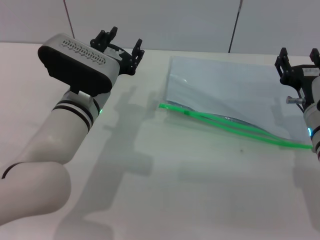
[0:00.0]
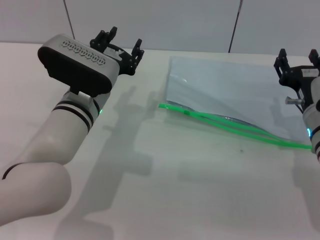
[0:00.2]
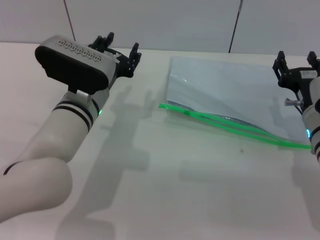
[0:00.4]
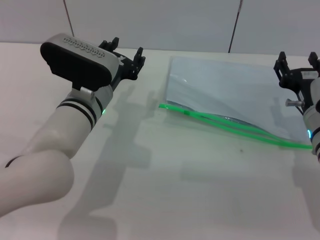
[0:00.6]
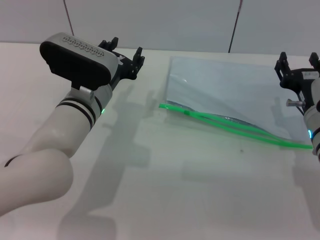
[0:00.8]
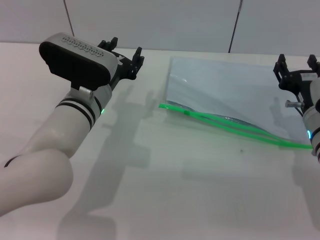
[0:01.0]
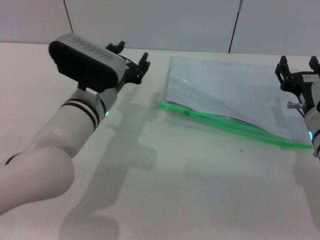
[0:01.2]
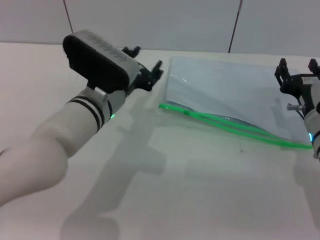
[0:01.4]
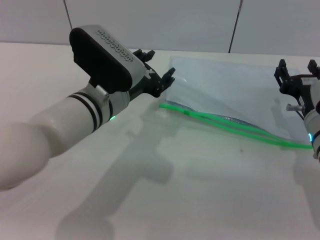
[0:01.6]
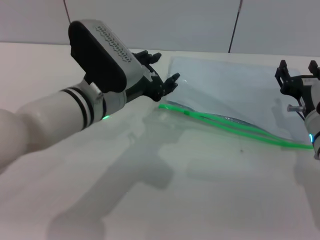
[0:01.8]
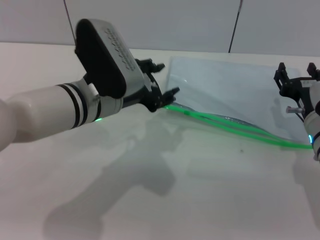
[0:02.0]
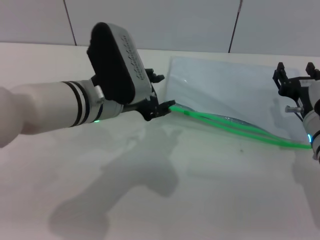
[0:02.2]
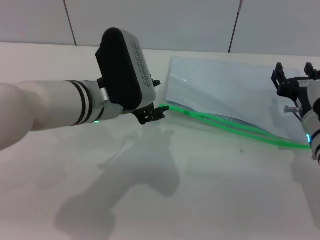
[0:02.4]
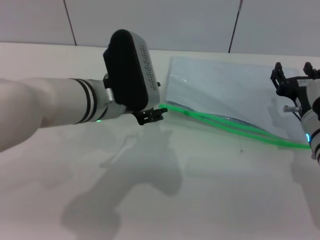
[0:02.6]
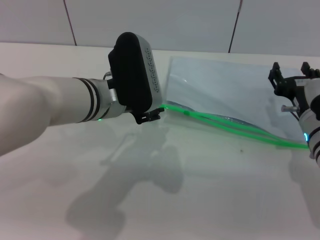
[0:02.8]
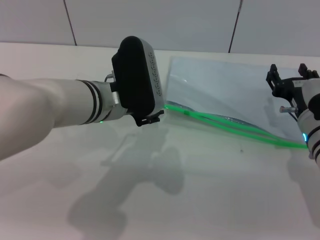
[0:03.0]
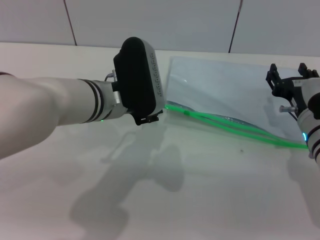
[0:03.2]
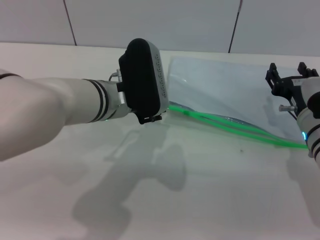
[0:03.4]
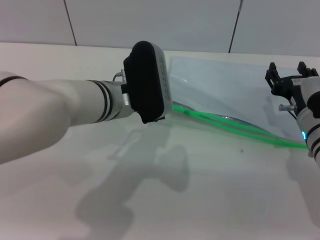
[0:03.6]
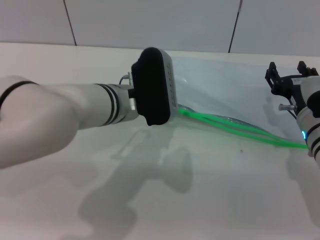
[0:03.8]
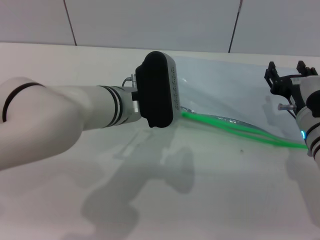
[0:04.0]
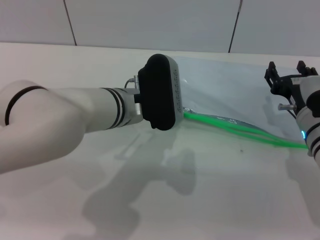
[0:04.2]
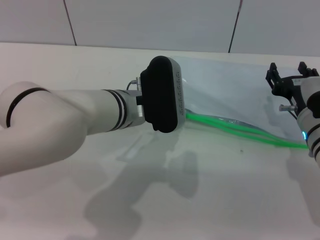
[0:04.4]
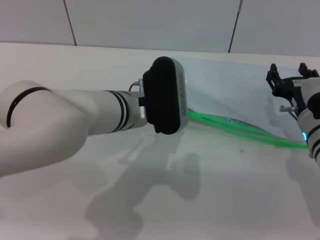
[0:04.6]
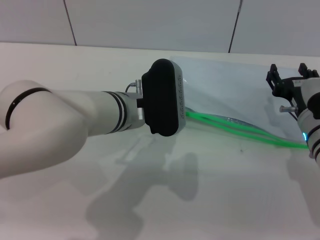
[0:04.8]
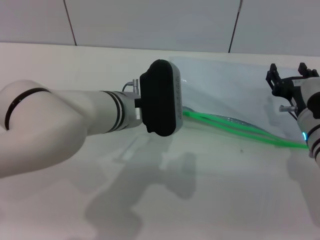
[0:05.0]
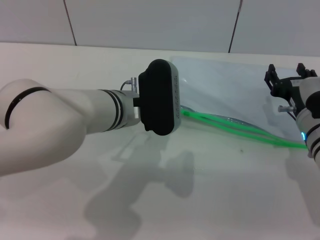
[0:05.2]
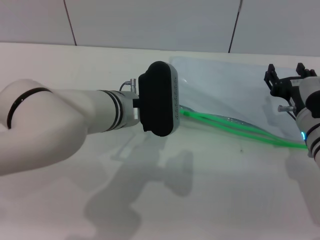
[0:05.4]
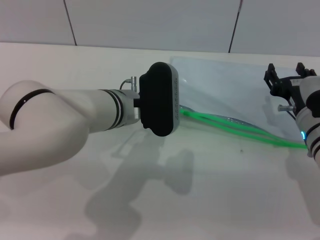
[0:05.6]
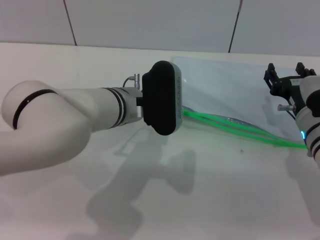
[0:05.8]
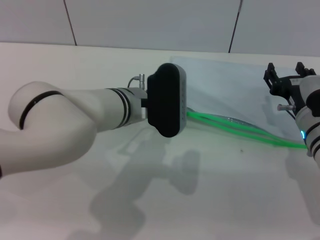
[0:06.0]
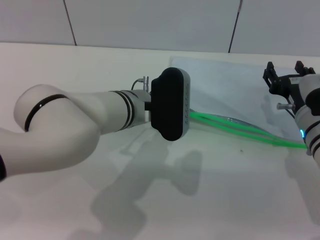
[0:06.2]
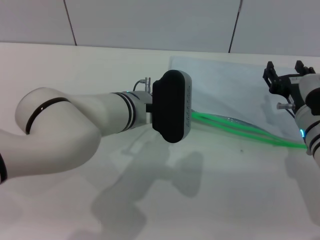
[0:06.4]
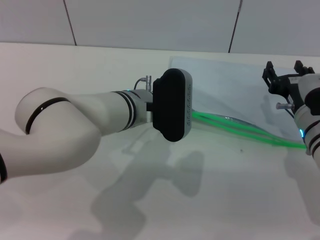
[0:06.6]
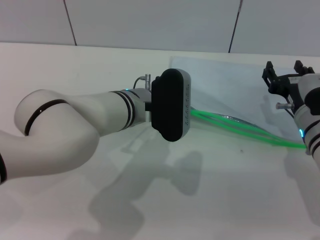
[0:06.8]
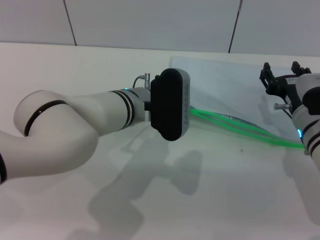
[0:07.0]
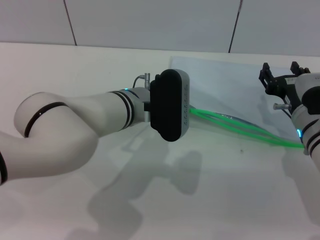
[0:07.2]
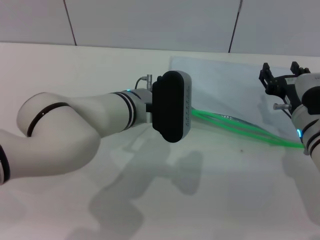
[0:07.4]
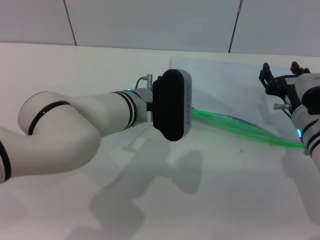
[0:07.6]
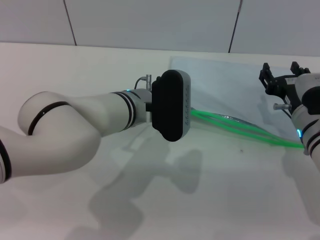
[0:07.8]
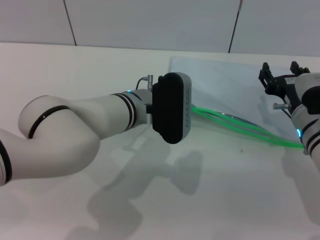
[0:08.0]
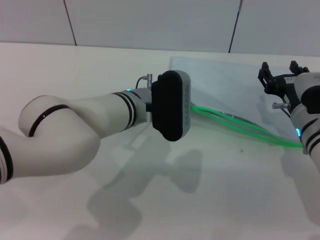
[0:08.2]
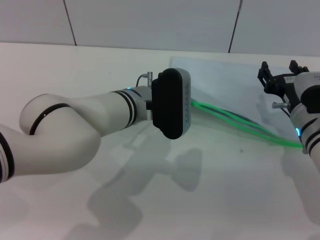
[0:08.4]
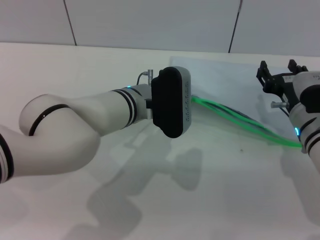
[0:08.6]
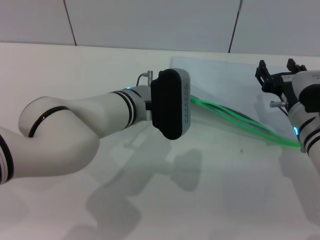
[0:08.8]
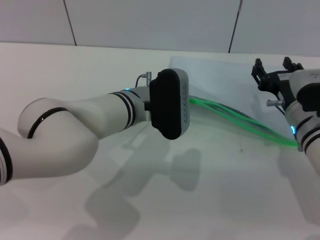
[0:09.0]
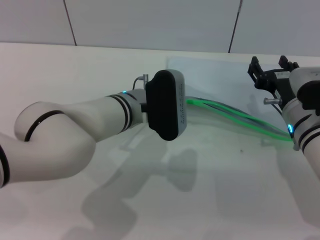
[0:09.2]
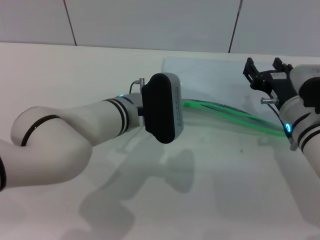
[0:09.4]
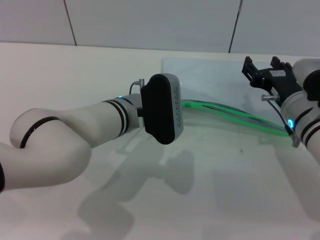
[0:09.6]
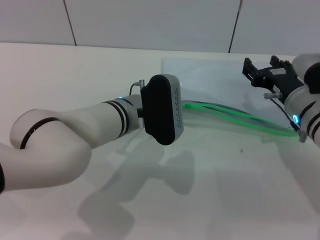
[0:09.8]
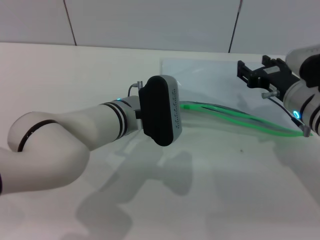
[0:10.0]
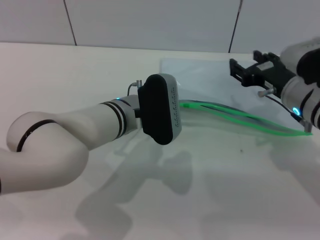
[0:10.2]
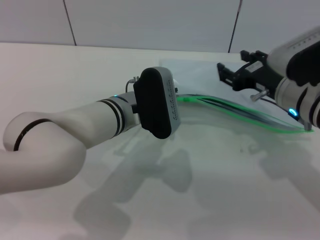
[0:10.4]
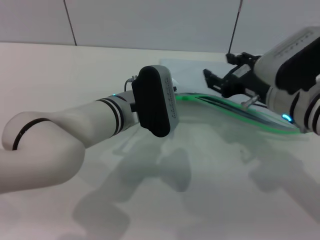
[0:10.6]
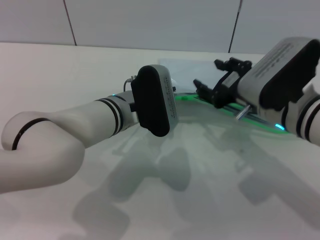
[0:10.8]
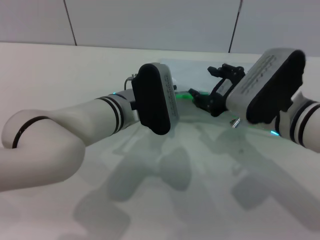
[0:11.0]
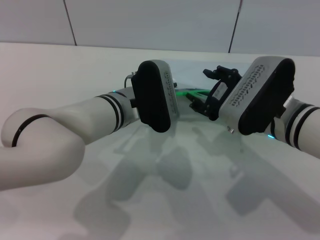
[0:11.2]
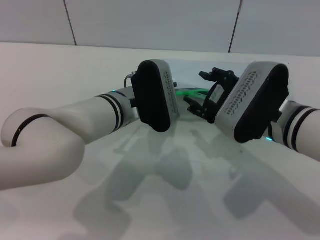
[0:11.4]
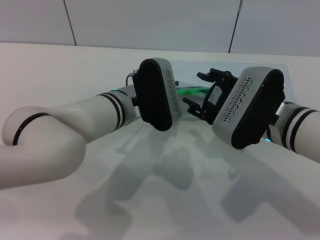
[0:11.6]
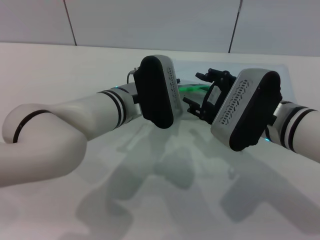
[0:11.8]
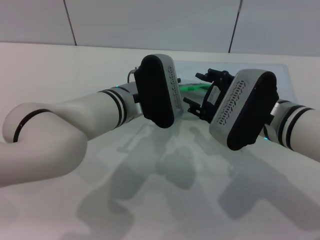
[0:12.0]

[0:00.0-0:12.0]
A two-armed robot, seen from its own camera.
Step, 0:00.0 to 0:10.4: Pick up the transparent plastic bag with the left gripper.
0:00.0 to 0:01.6: The grippers stay close to where they were, moving slightly.
0:03.0 to 0:07.6: There are only small adjustments of the grippers.
0:07.6 to 0:09.0: The left gripper closes its fingers.
0:09.0 to 0:10.4: The right gripper travels upward by about 5 cm.
0:10.4 to 0:12.0: The right gripper changes place by roughly 5 cm.

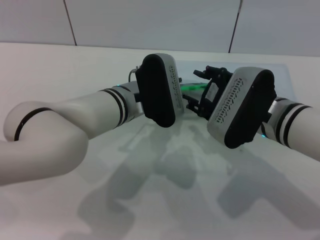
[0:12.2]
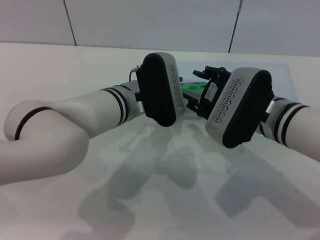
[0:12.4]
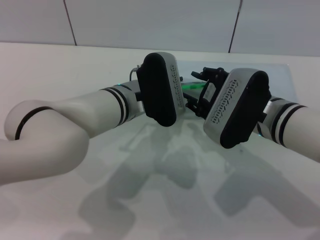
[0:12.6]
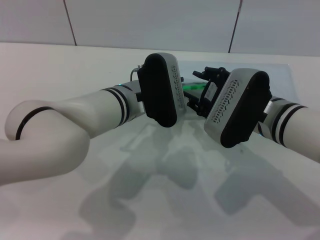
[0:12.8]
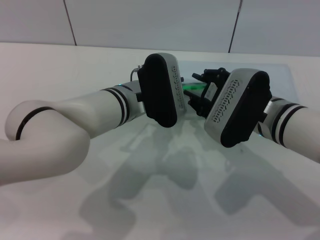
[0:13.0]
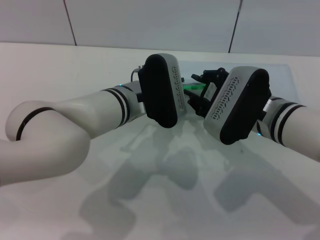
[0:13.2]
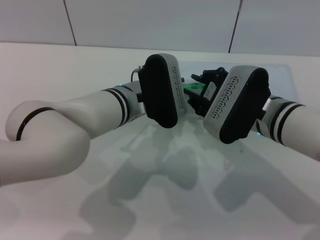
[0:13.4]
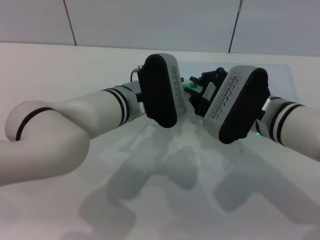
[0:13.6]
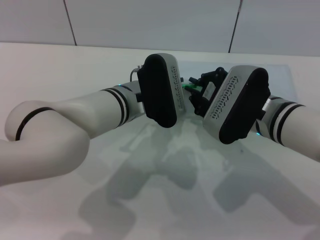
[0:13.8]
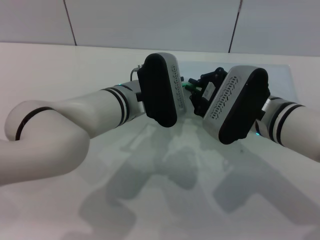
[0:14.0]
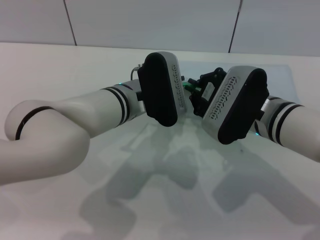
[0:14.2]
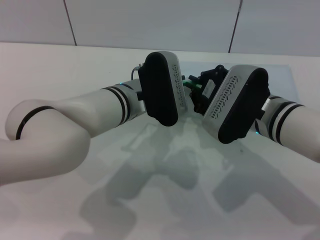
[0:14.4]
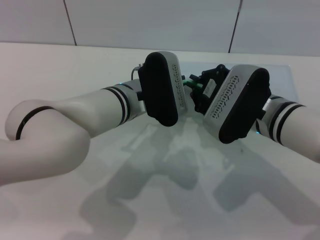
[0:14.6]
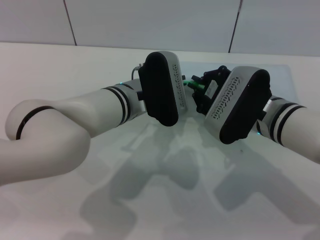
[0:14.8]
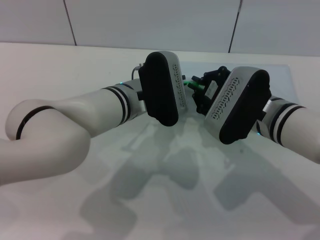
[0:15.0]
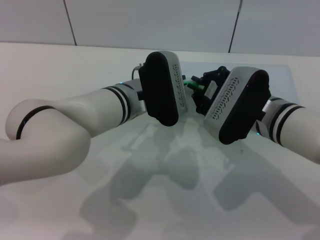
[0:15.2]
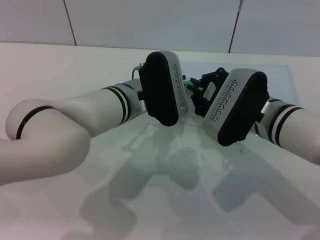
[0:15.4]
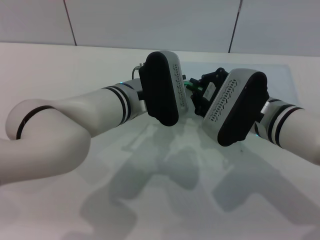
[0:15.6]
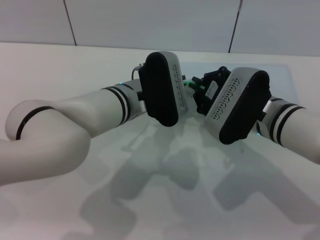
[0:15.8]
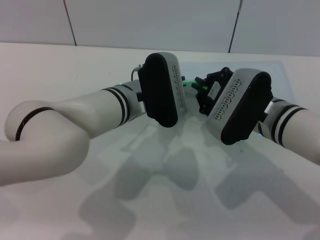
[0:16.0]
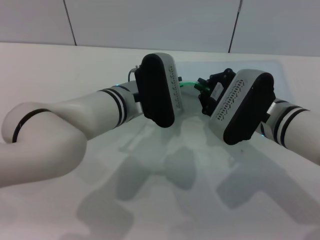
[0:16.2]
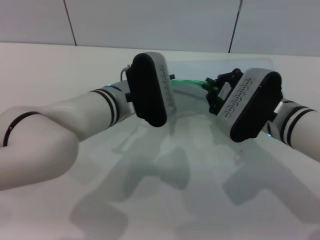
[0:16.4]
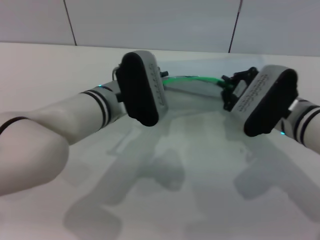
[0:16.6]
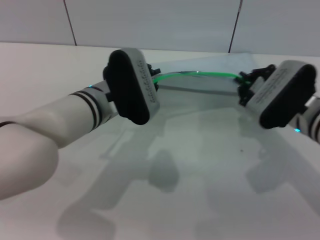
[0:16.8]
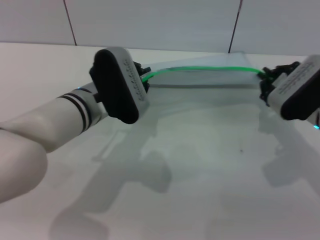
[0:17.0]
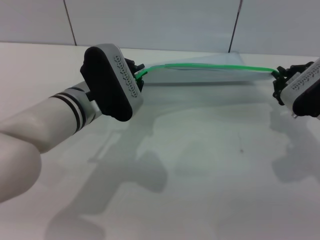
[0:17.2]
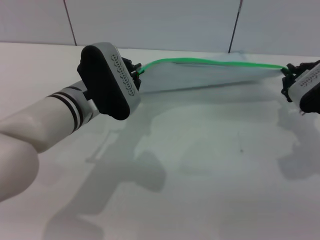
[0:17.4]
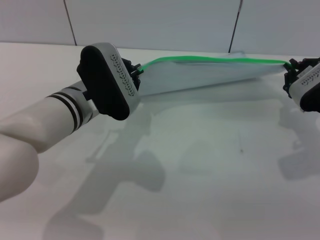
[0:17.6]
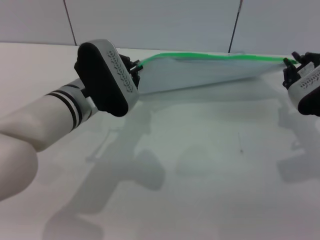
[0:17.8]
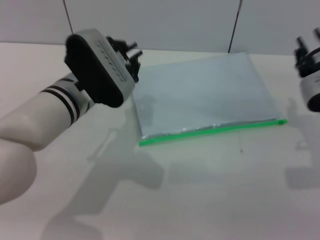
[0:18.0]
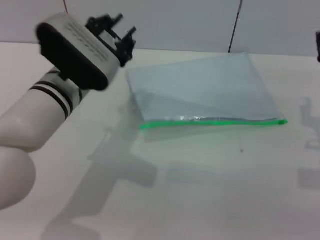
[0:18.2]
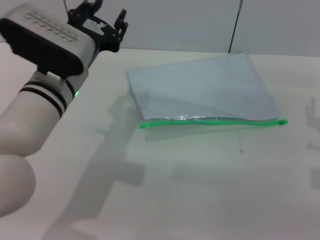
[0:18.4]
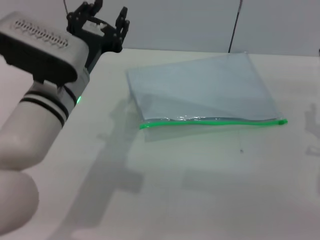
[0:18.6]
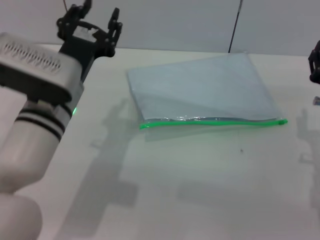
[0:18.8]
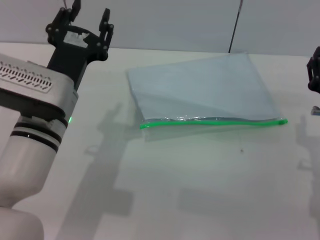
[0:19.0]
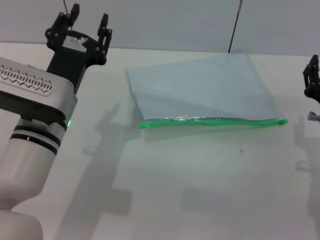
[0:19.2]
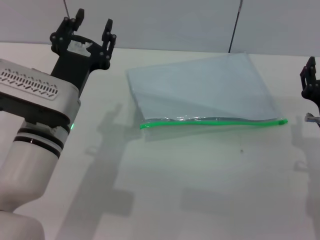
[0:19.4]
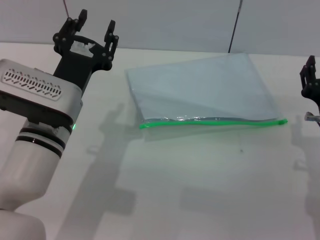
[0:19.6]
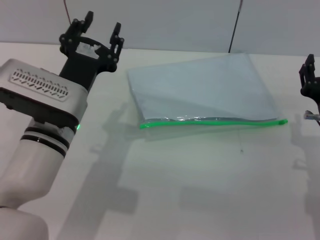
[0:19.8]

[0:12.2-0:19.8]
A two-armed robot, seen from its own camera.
Step, 0:12.2 to 0:17.6: Pulling up the zipper on the transparent plastic bag with the right gripper to close it.
0:12.2 to 0:13.8: The right gripper closes its fingers.
0:13.8 to 0:15.2: Both grippers stay about where they are.
0:15.2 to 0:16.8: The right gripper travels to the right by about 5 cm.
0:16.8 to 0:18.2: The right gripper shifts by about 5 cm, and opens its fingers.
0:18.2 to 0:19.8: The right gripper changes place by about 5 cm. Meanwhile the left gripper changes place by approximately 5 cm, and opens.
